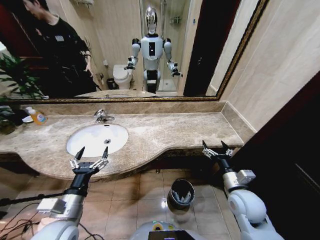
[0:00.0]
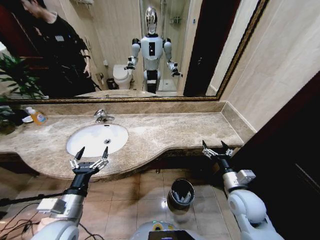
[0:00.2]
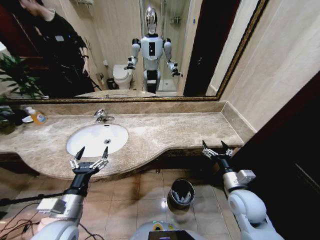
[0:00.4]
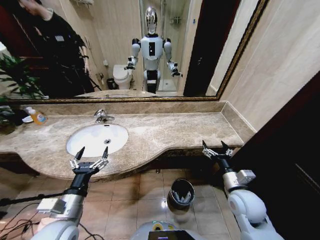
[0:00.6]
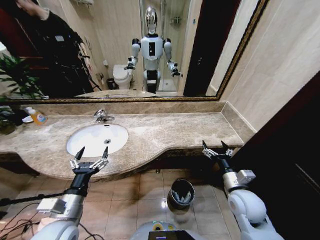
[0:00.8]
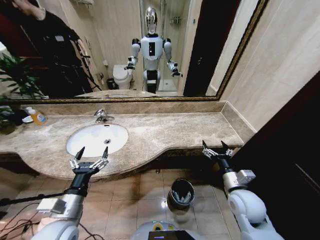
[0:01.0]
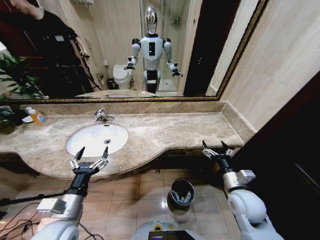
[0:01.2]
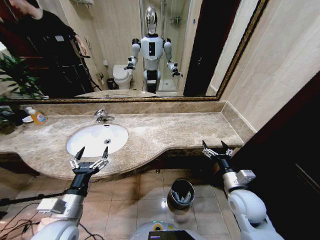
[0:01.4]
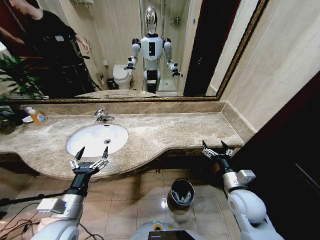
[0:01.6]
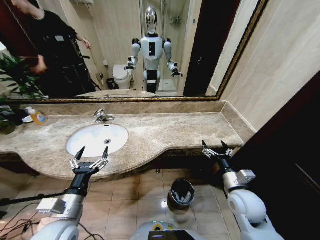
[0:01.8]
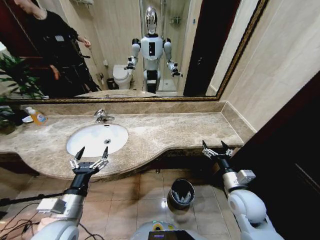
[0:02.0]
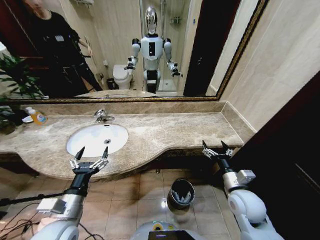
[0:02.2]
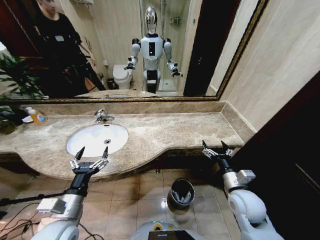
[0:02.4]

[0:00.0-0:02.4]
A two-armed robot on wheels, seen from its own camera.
Task of the whole recording: Pick up the trash from the sink and place it in the trash bin.
0:00.0 to 0:02.4: The two grippers keep their place.
